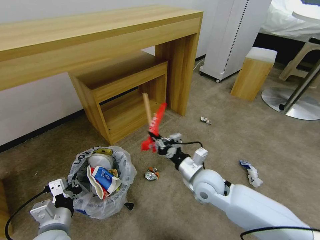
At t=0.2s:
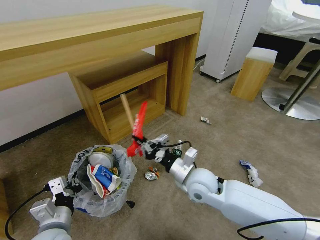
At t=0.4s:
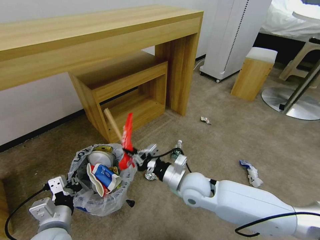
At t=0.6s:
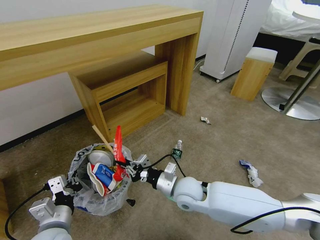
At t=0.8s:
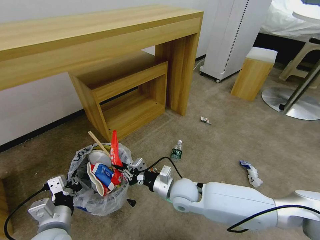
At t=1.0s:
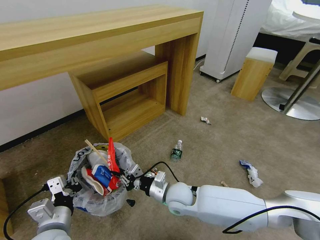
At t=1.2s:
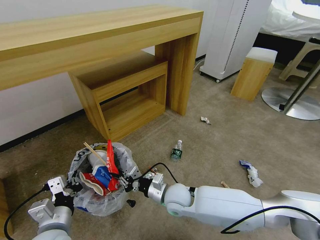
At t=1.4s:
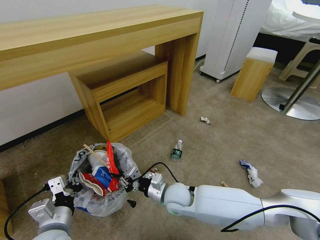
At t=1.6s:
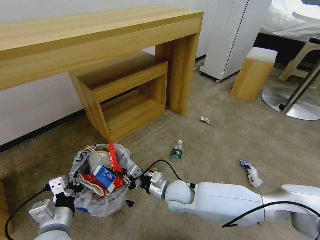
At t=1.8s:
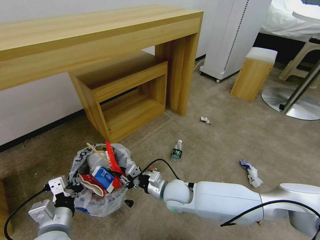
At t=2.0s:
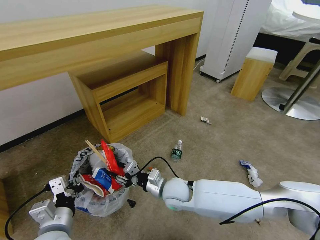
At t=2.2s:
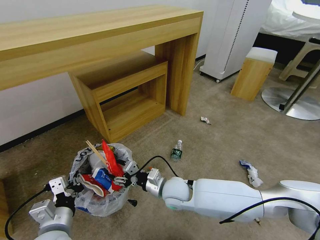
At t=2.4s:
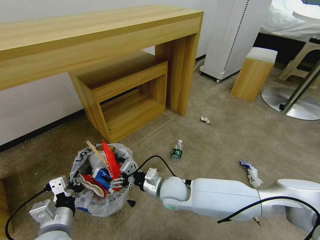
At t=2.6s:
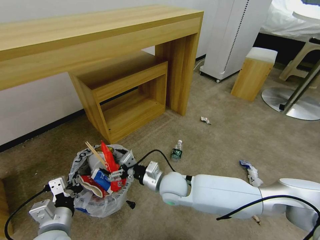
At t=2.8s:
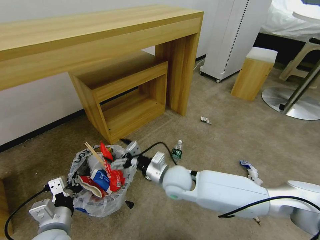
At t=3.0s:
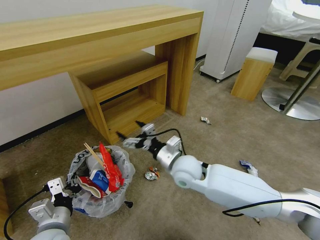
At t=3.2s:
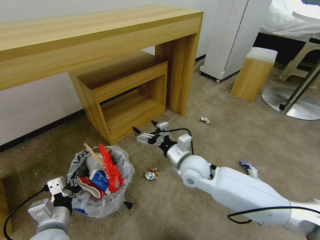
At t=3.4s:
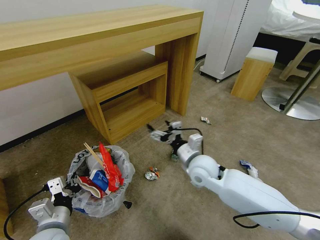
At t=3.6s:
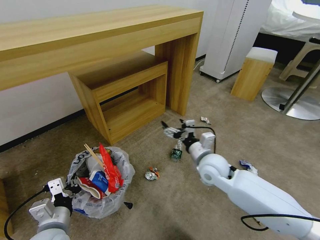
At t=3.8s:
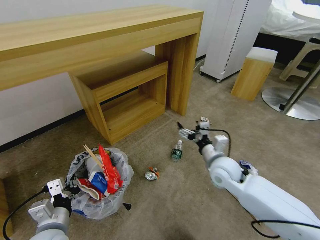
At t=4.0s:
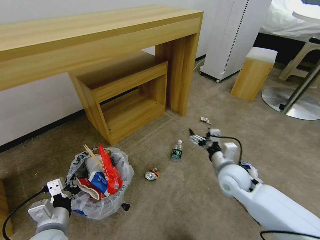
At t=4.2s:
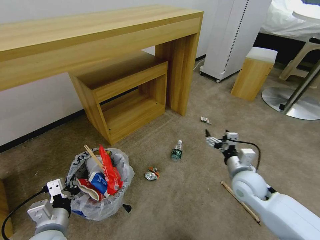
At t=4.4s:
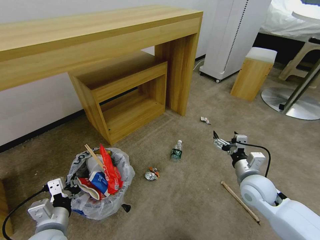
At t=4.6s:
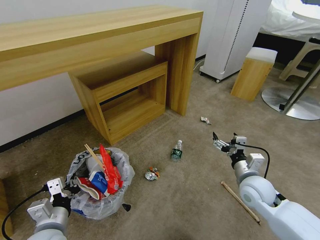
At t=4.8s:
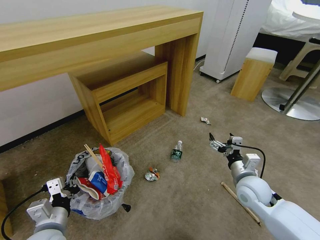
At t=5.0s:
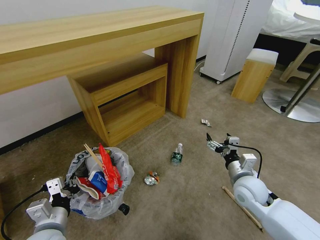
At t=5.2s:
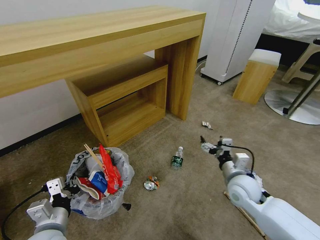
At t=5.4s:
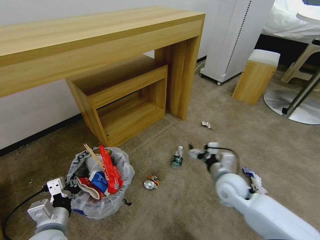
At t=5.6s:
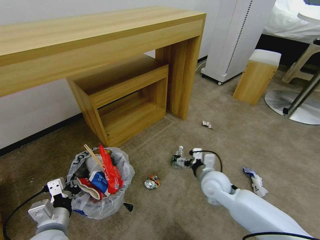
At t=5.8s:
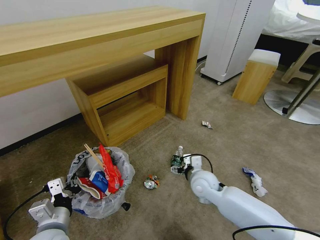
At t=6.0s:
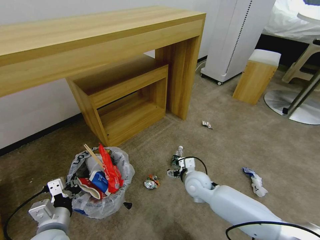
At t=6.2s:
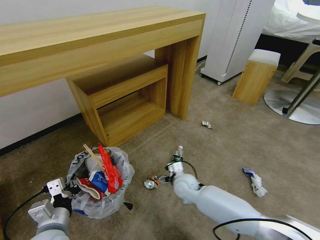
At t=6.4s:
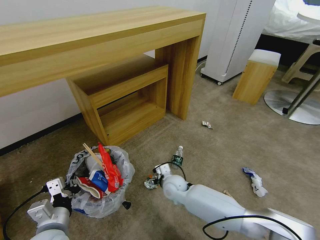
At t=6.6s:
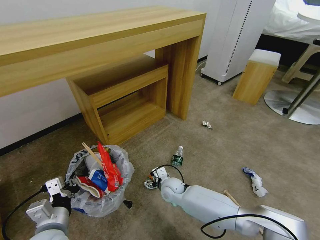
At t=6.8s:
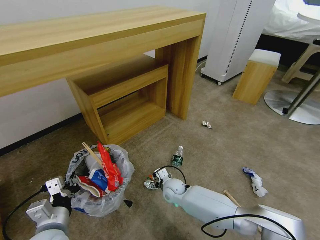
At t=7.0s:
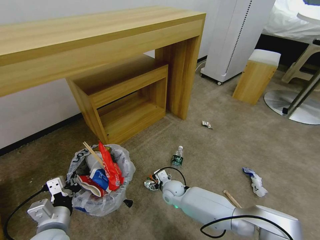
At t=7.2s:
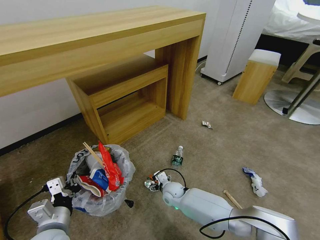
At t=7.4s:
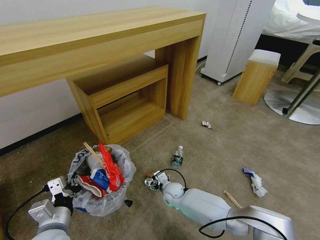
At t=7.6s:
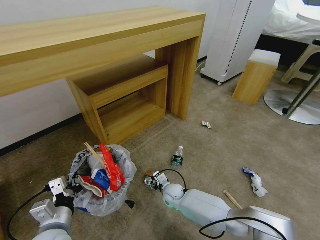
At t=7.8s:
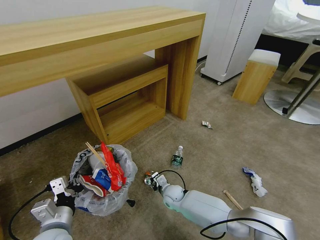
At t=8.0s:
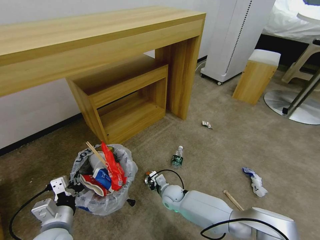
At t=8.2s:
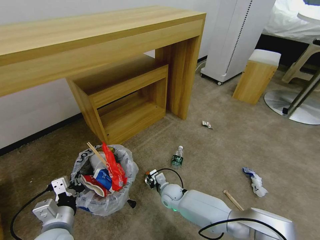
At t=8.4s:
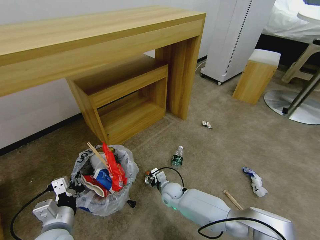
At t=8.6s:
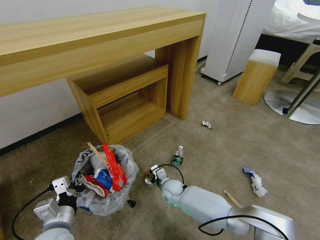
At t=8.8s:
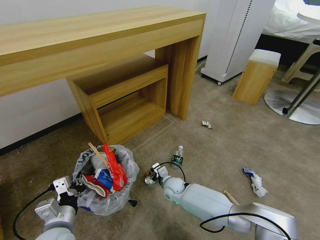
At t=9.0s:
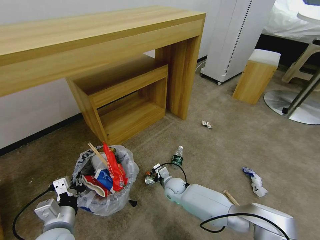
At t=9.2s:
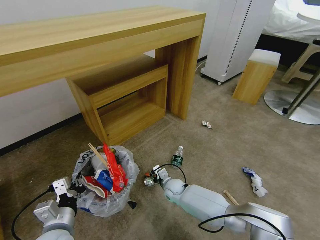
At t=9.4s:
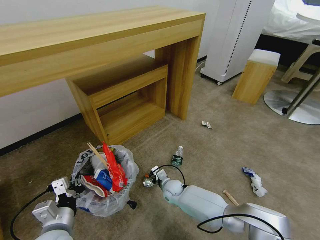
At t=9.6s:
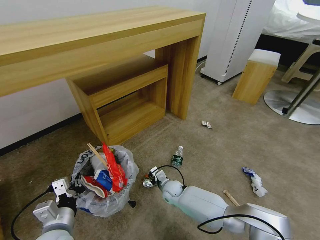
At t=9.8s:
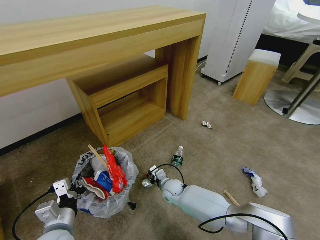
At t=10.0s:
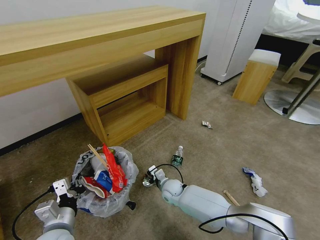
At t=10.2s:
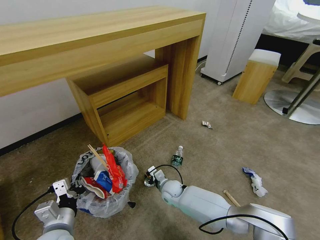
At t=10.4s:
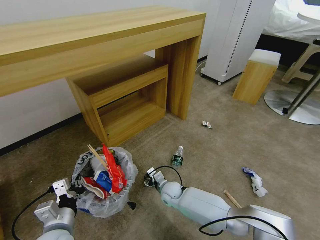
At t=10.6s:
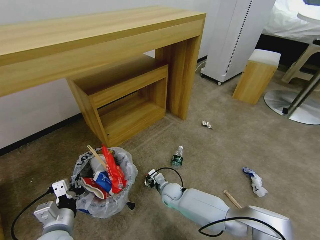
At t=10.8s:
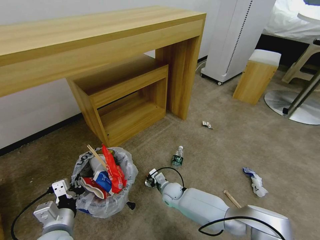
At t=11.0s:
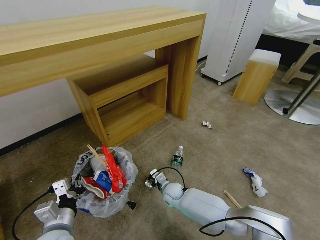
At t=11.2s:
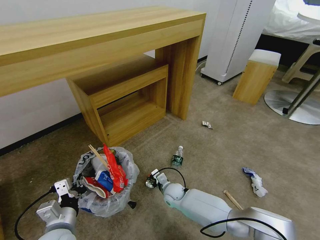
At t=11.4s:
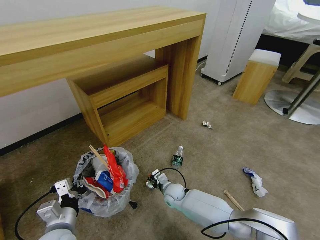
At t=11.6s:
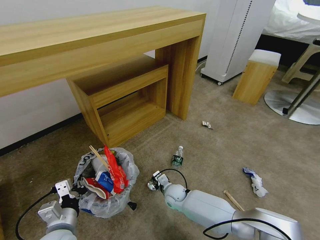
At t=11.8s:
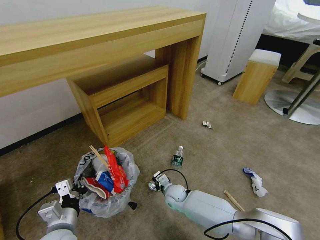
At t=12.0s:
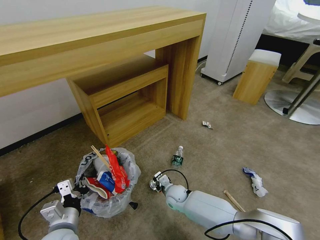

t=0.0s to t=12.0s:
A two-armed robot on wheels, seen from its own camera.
Task of the whole recording: Pick up the trash bin and place the garbage on the floor into it.
t=0.0s to t=1.6s: The right gripper heads downward and to the left, covering roughly 10 cm.
t=1.6s to t=3.0s: The right gripper heads upward, covering roughly 10 cm, and opens its fingers.
t=3.0s to t=4.4s: The right gripper shifts about 25 cm to the right.
t=4.4s to t=6.0s: The right gripper is displaced to the left and downward by approximately 20 cm.
t=6.0s to t=7.6s: The right gripper goes approximately 15 cm downward and to the left.
t=7.6s to t=10.4s: There are only small adjustments of the grippers.
t=10.4s to t=12.0s: The right gripper closes up.

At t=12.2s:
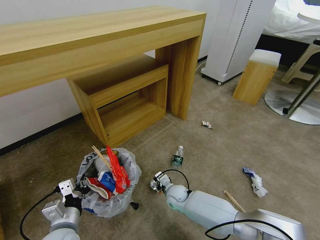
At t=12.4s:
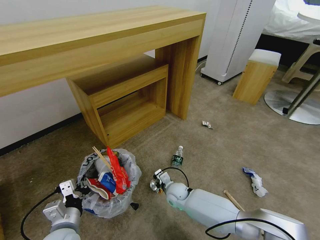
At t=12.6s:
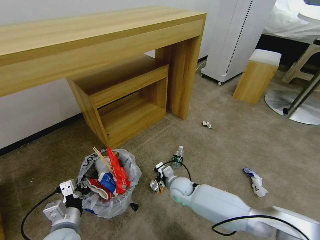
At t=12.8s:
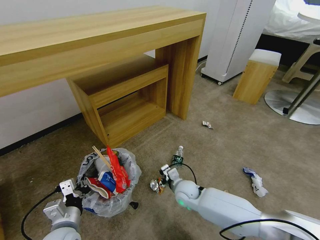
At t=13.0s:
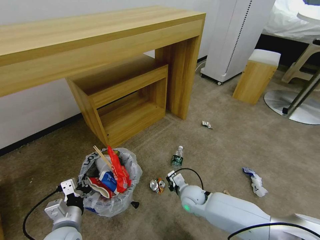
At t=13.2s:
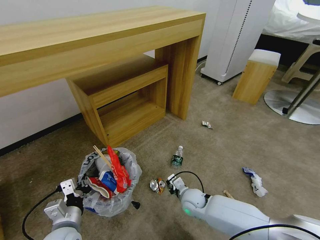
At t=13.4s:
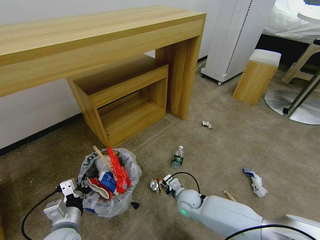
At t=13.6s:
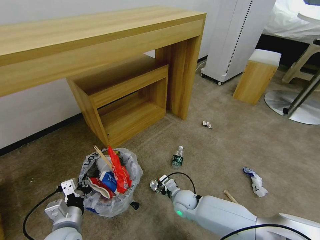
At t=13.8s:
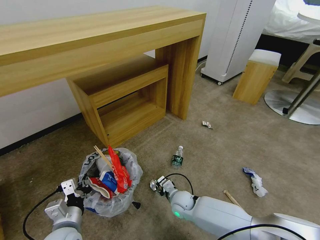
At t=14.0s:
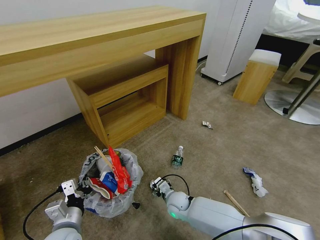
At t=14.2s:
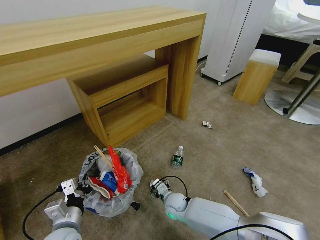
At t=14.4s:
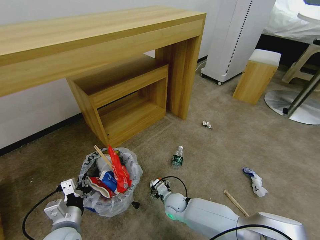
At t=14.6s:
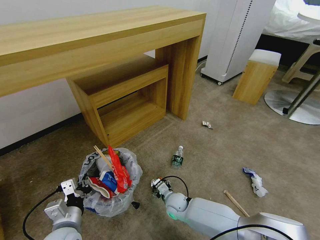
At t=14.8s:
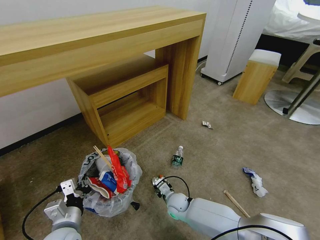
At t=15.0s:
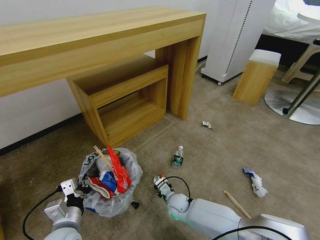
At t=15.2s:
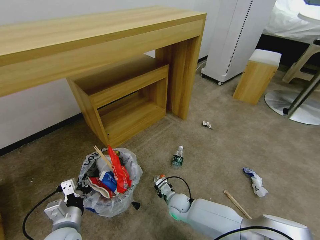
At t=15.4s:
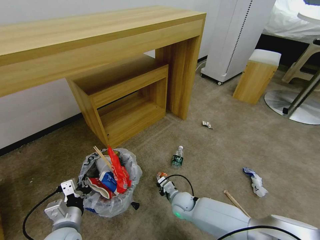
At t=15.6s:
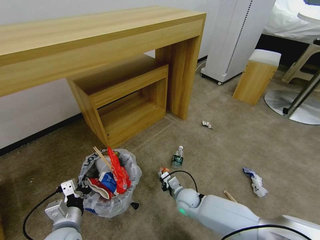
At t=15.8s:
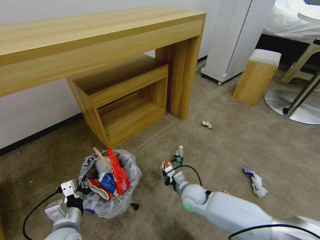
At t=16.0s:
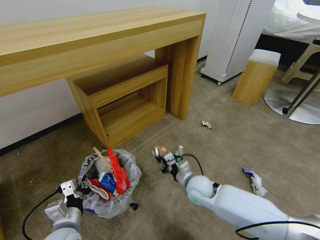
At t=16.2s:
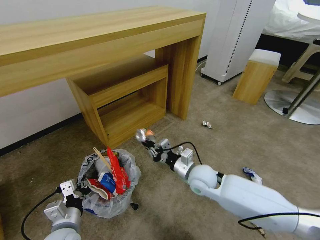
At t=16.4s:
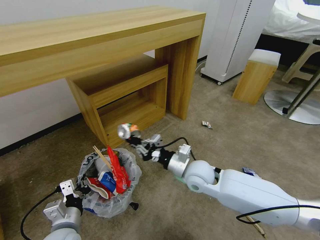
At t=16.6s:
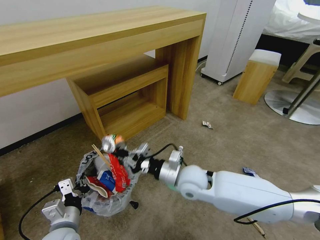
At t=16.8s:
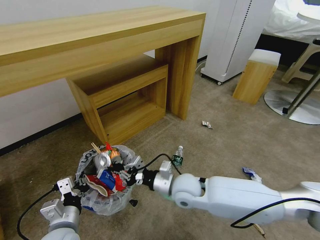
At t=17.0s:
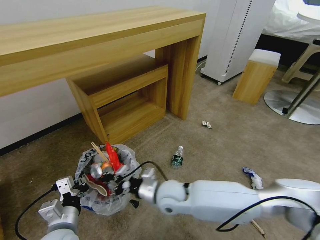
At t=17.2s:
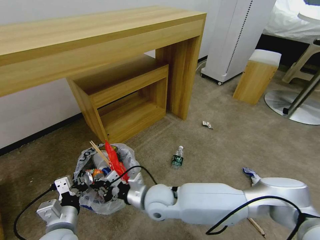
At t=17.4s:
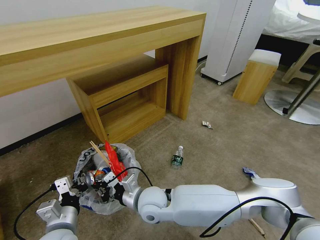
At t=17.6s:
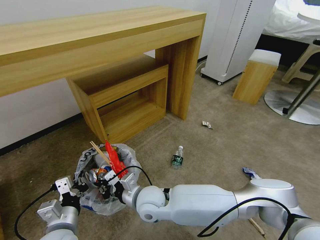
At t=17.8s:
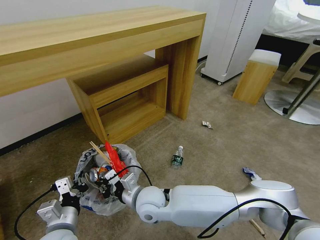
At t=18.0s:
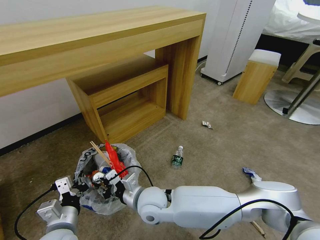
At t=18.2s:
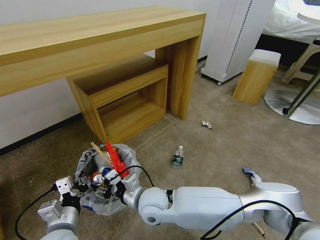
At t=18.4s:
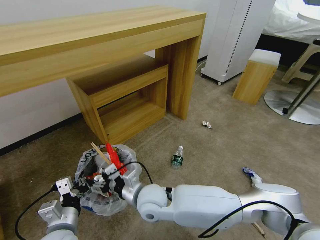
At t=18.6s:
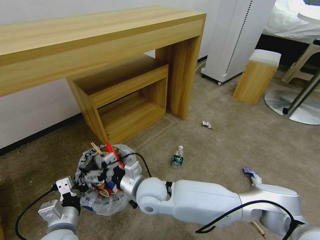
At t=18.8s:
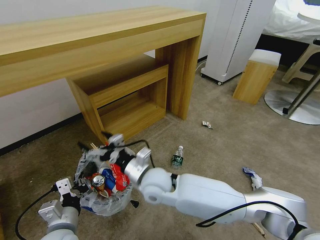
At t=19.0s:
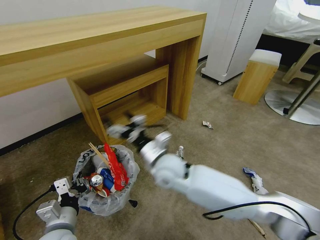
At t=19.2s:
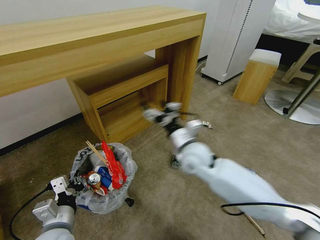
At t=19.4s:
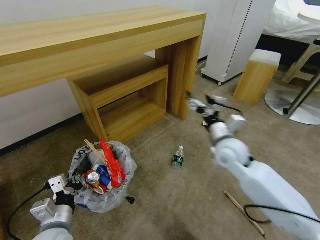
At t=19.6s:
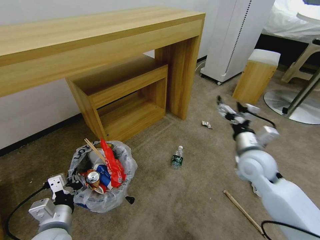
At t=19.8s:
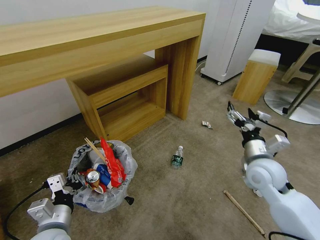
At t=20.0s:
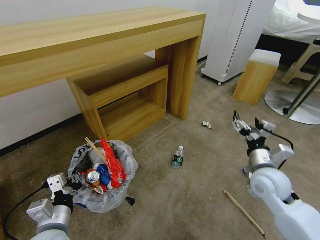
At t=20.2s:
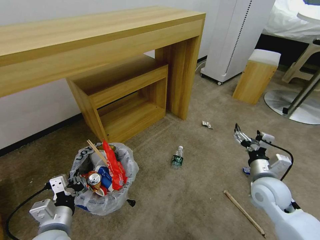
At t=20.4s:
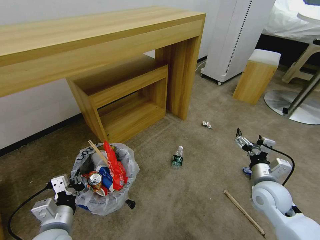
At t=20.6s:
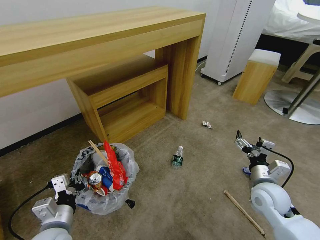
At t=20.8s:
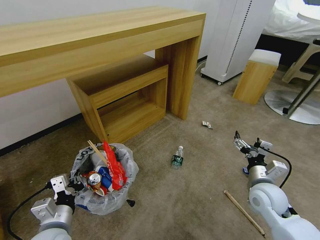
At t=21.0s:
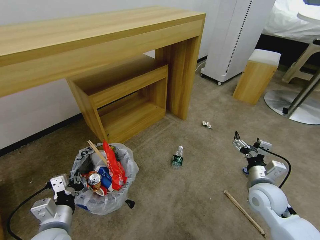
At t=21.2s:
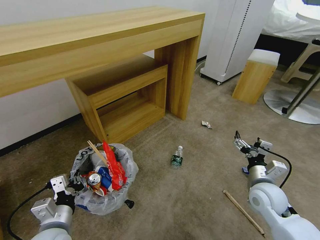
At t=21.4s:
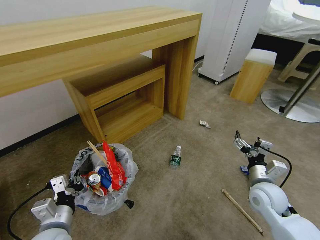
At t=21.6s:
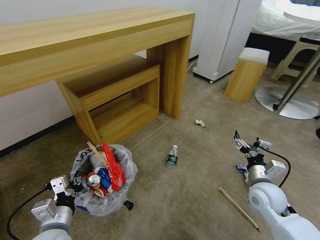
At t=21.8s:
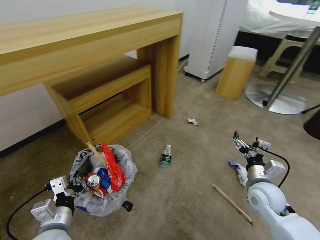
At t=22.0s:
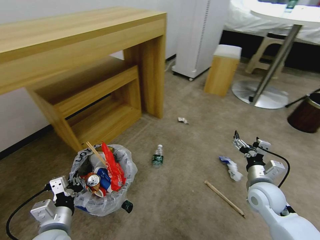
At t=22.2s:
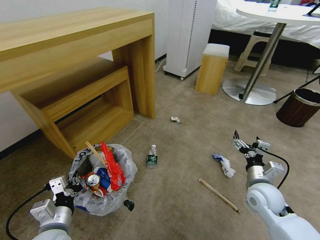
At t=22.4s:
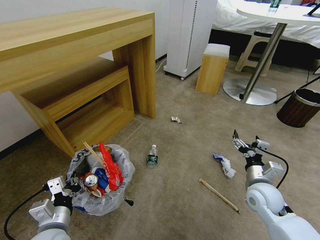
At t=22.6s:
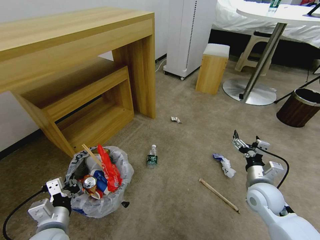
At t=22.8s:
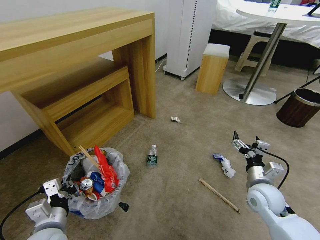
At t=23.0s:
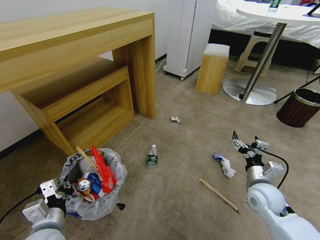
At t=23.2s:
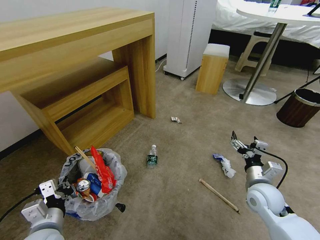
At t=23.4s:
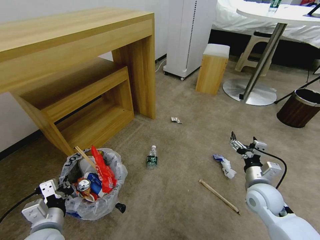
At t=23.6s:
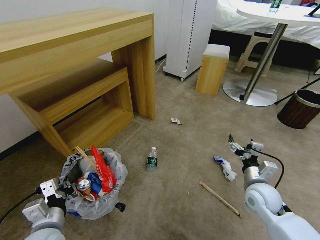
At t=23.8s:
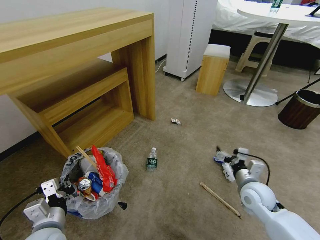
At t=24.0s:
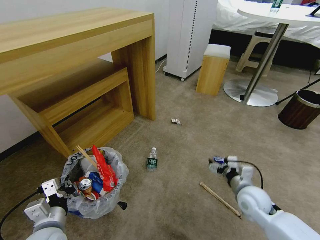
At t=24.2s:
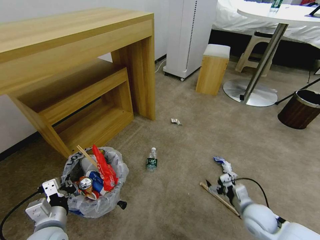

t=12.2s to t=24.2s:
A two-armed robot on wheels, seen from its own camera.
Task of the whole recording: Pick up the trash bin and place the garbage on the floor into it.
t=12.2s to t=13.8s: The right gripper opens.
t=13.8s to t=15.2s: The right gripper closes.
t=15.2s to t=16.6s: The right gripper heads upward, covering roughly 25 cm.
t=16.6s to t=18.2s: The right gripper is displaced to the left and backward by roughly 15 cm, and opens its fingers.
t=18.2s to t=19.8s: The right gripper travels to the right by approximately 30 cm, and opens.
t=19.8s to t=21.2s: The right gripper travels downward and backward by about 10 cm.
t=22.6s to t=24.2s: The right gripper heads downward, covering roughly 10 cm.
